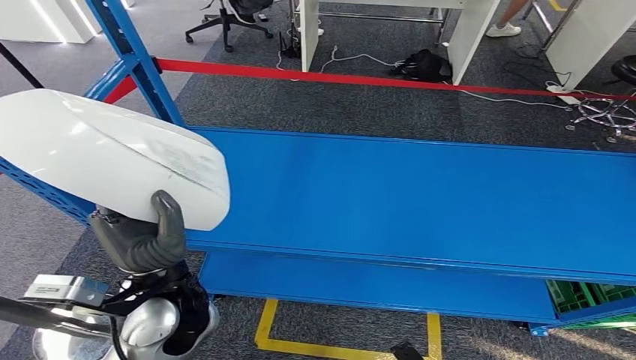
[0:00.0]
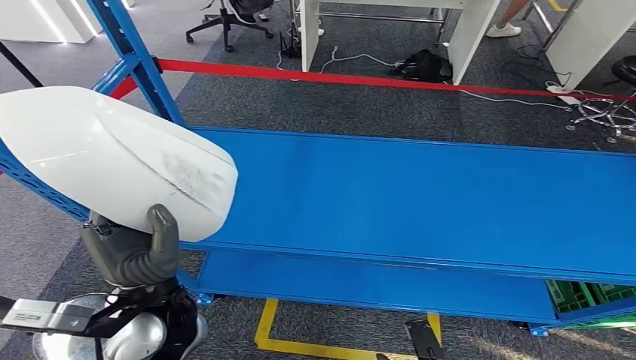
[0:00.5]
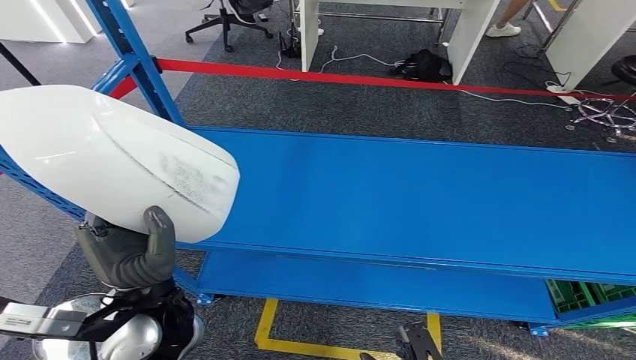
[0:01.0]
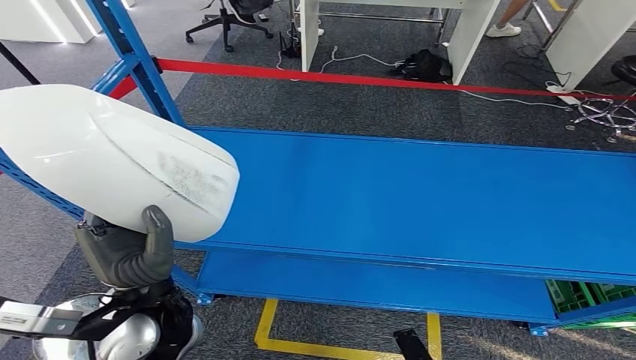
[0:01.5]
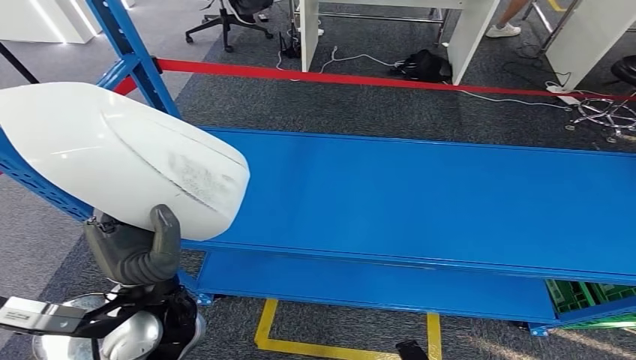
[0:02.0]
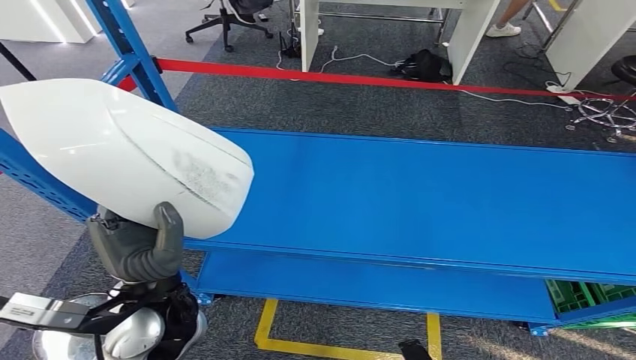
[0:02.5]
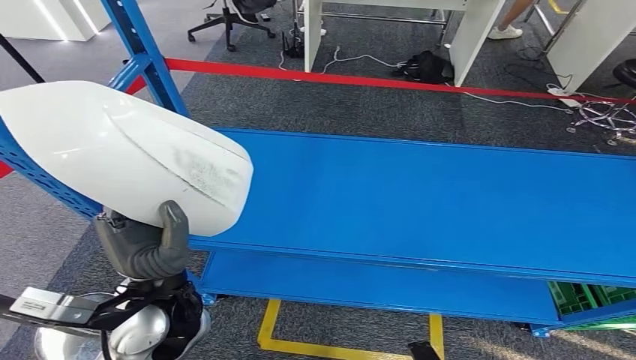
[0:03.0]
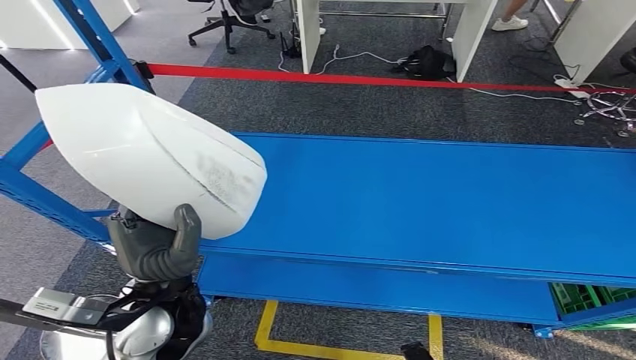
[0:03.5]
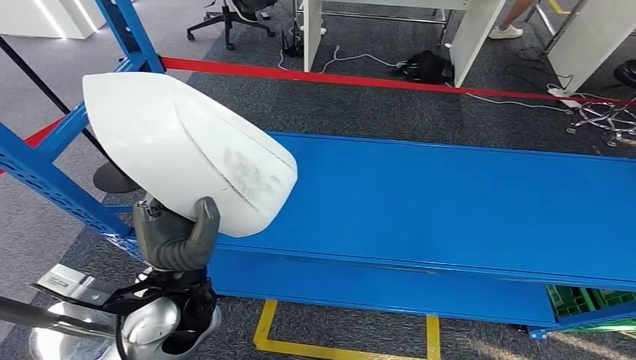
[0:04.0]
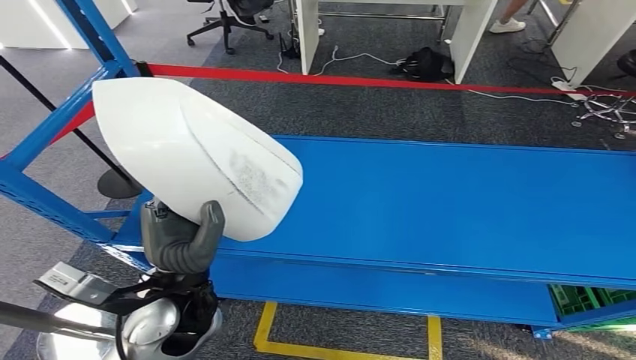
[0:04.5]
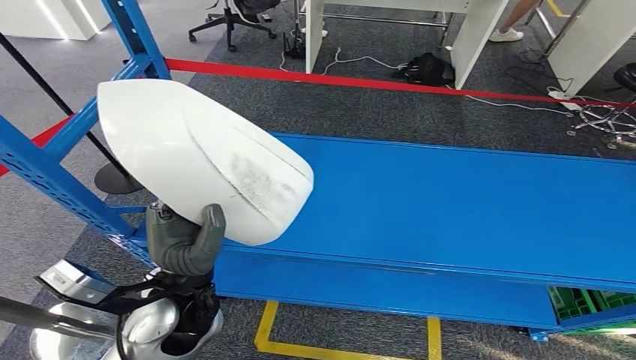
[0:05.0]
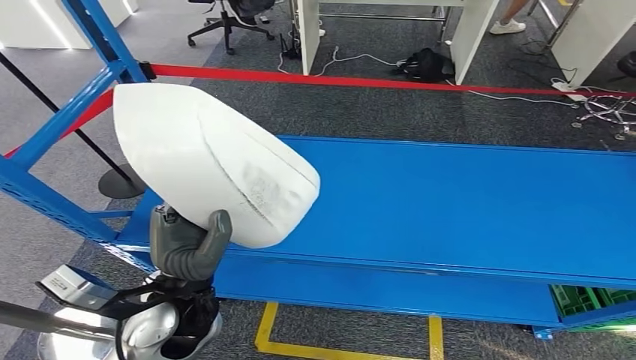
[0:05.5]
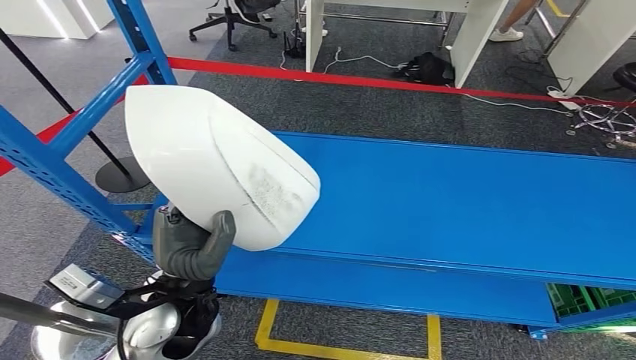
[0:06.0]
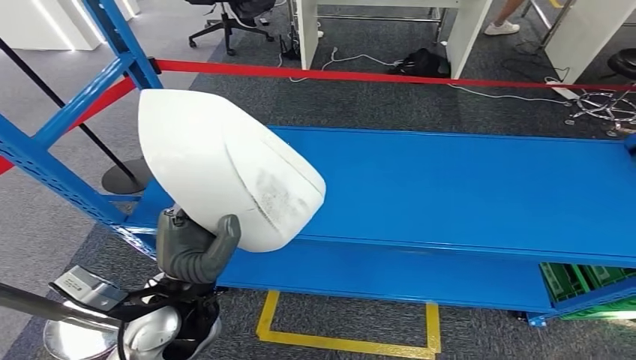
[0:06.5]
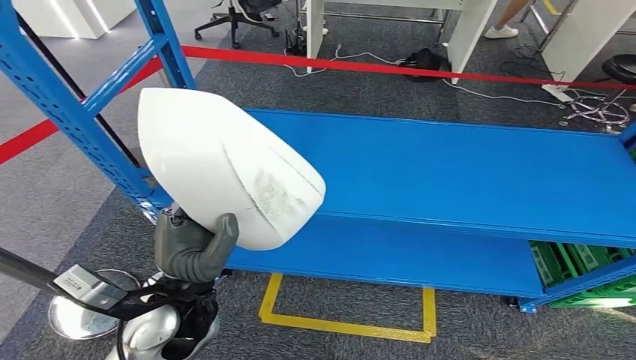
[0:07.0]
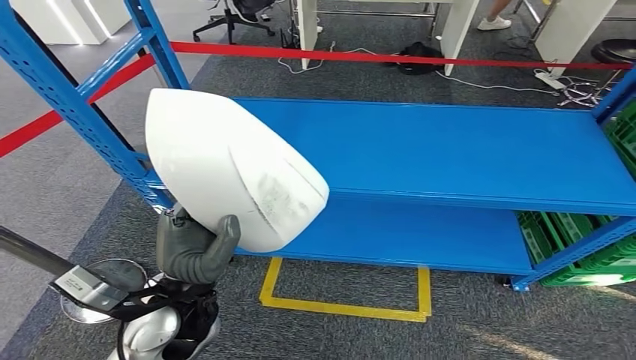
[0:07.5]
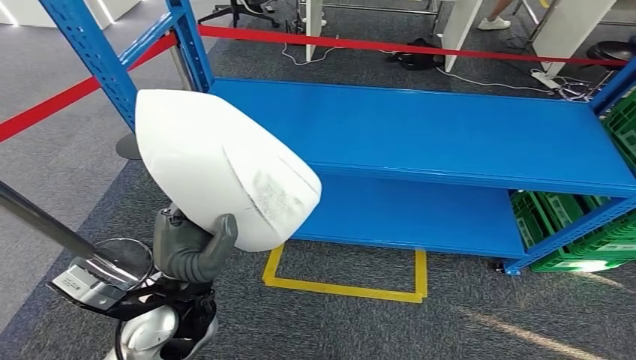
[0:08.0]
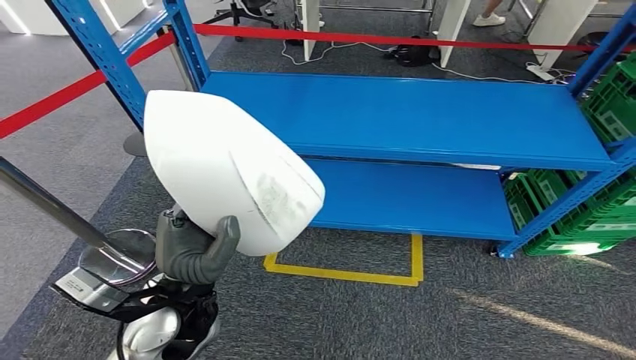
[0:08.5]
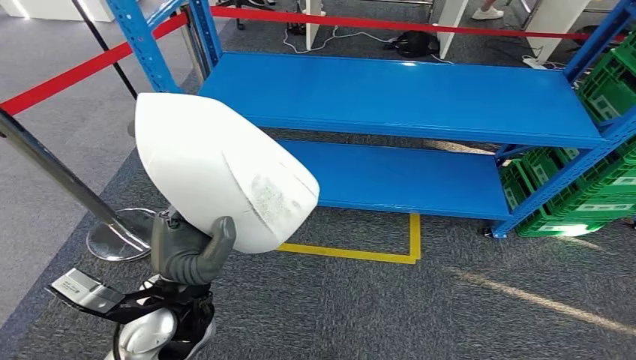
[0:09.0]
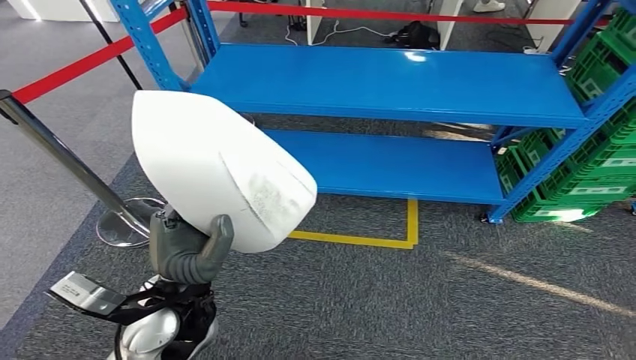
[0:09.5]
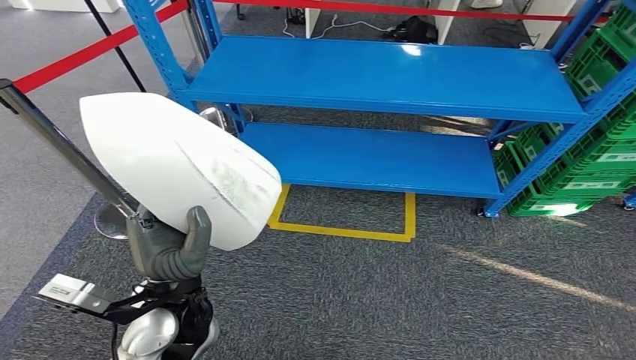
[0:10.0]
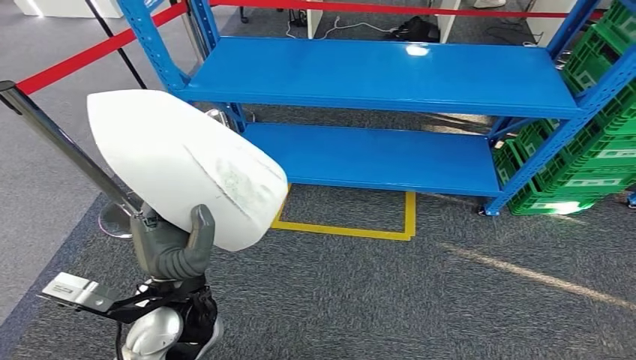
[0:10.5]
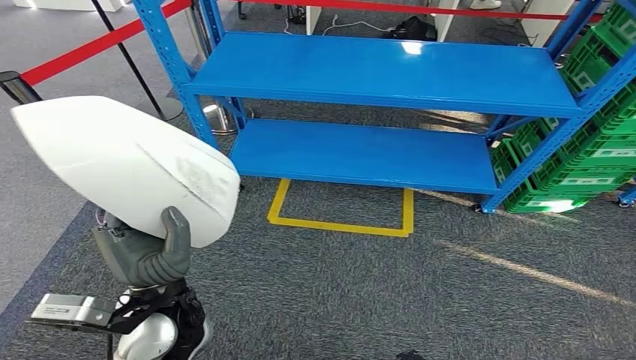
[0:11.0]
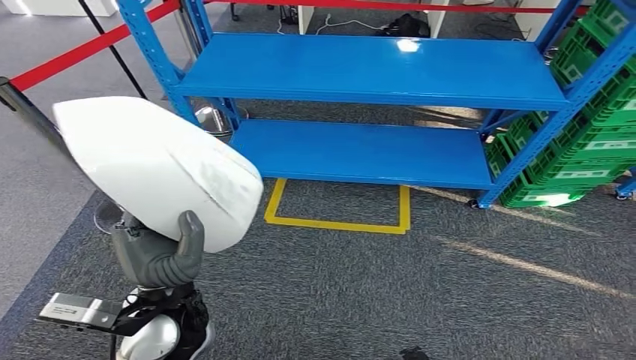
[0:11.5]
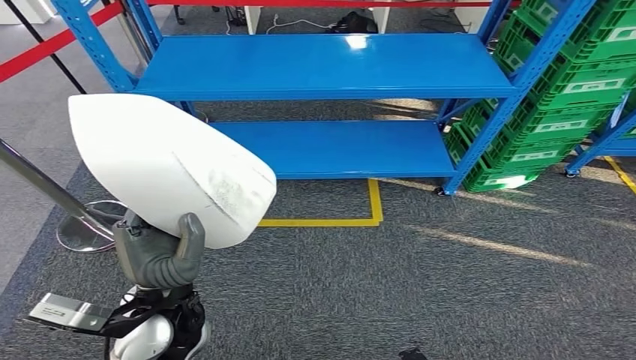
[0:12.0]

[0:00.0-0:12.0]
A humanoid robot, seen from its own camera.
0:04.0 to 0:06.0: There are only small adjustments of the hands.

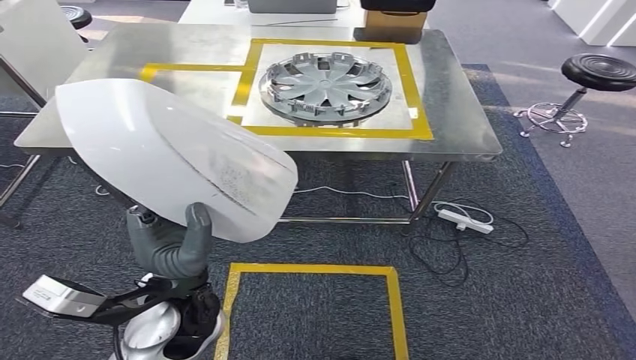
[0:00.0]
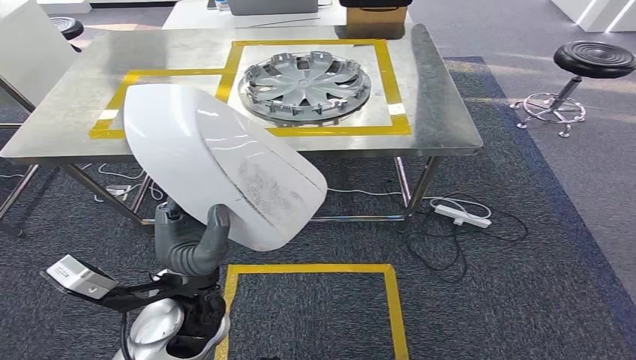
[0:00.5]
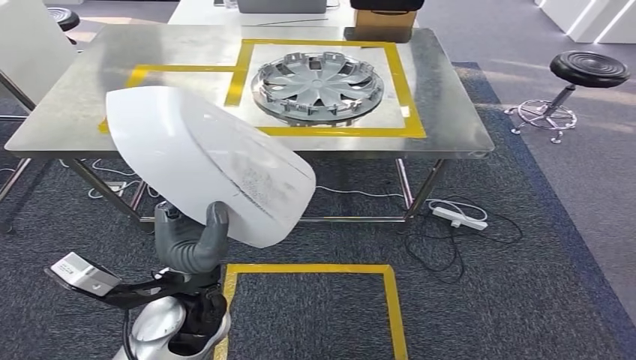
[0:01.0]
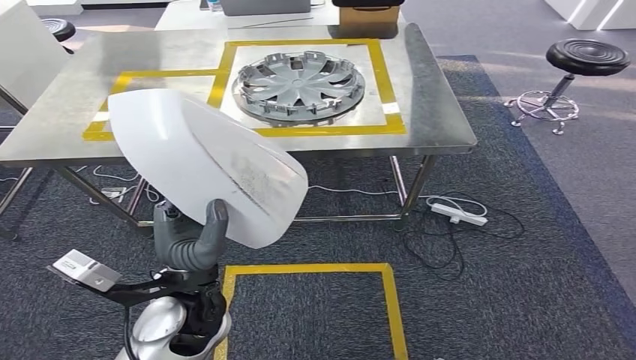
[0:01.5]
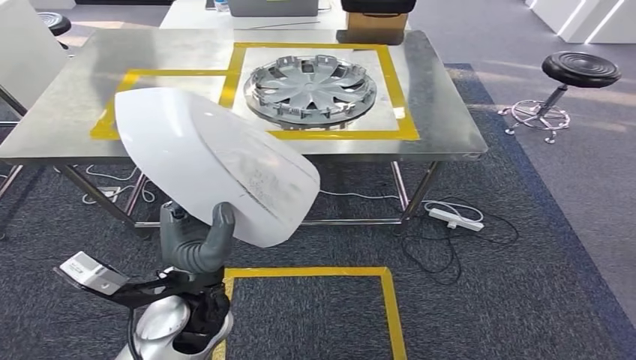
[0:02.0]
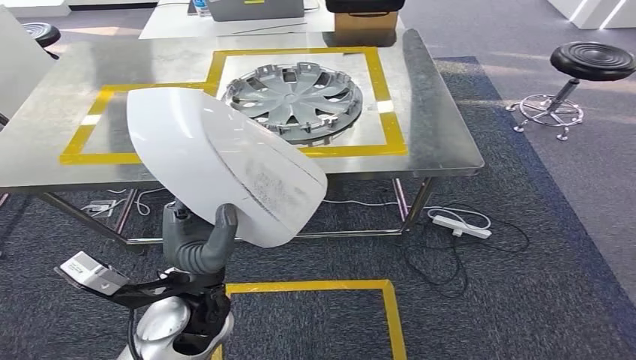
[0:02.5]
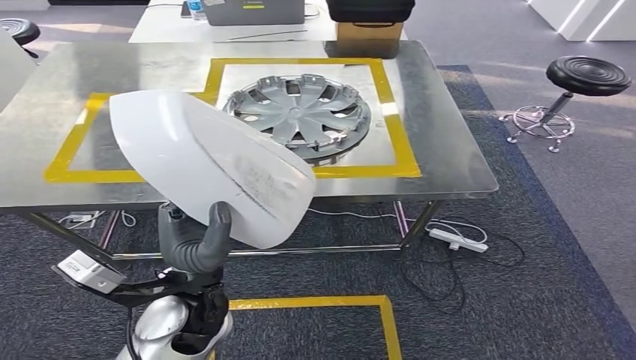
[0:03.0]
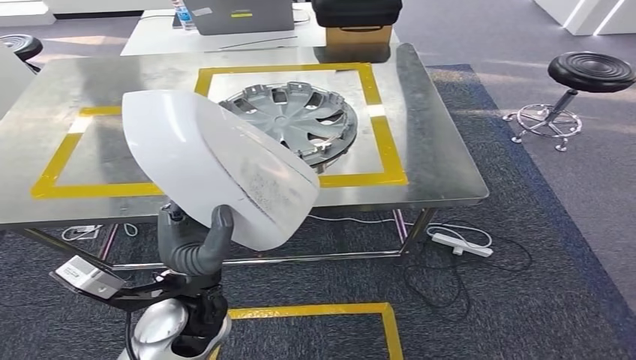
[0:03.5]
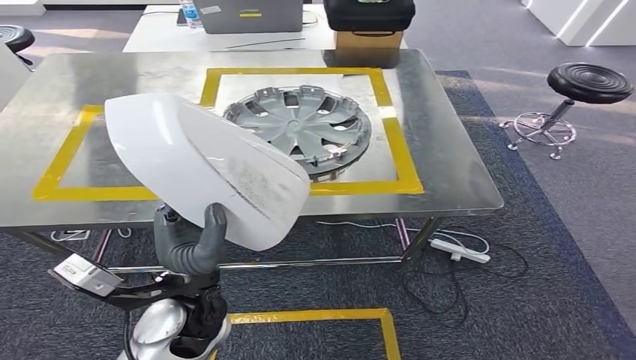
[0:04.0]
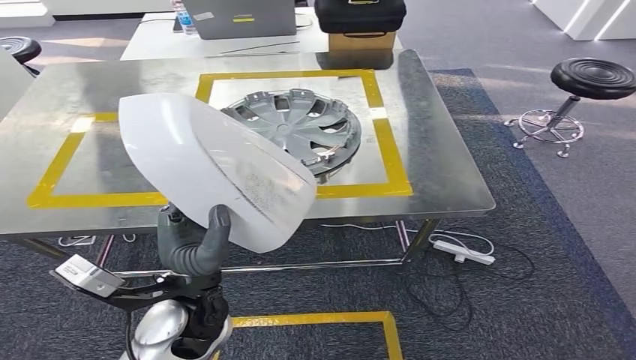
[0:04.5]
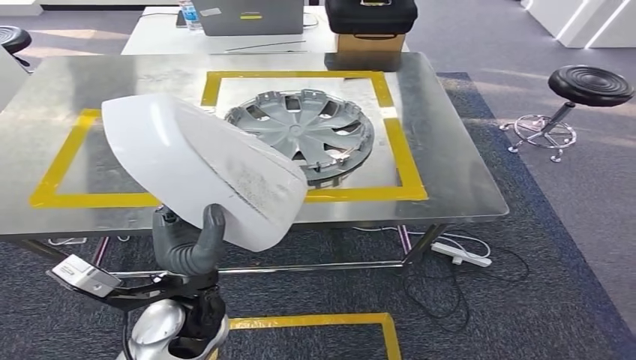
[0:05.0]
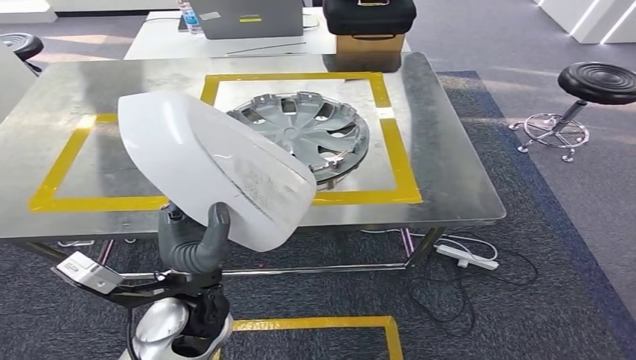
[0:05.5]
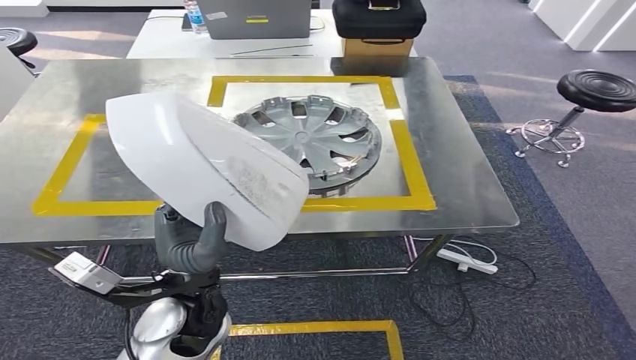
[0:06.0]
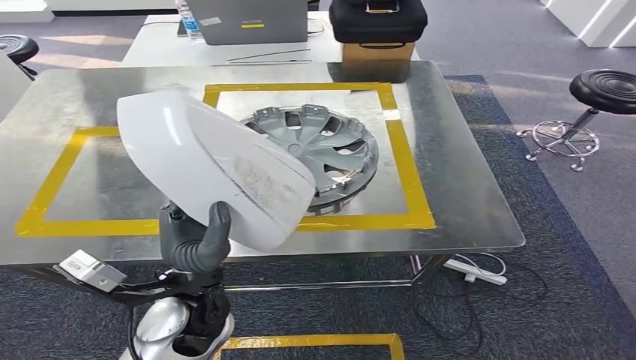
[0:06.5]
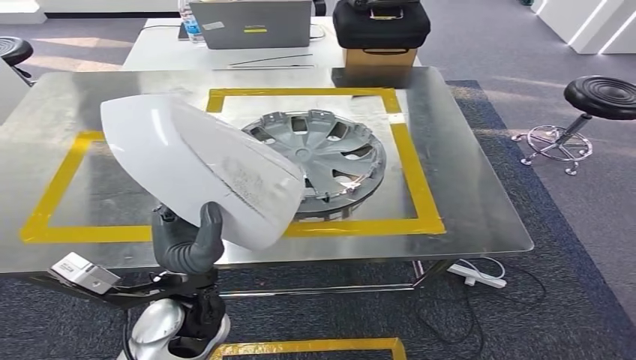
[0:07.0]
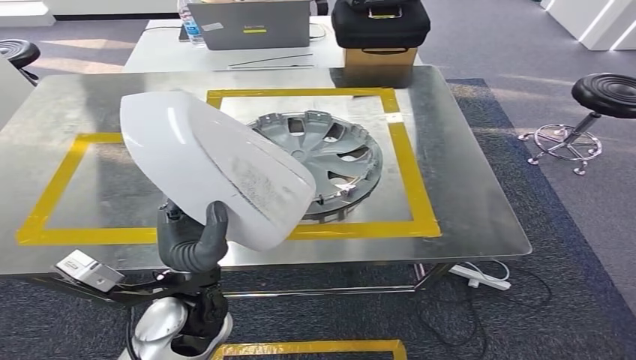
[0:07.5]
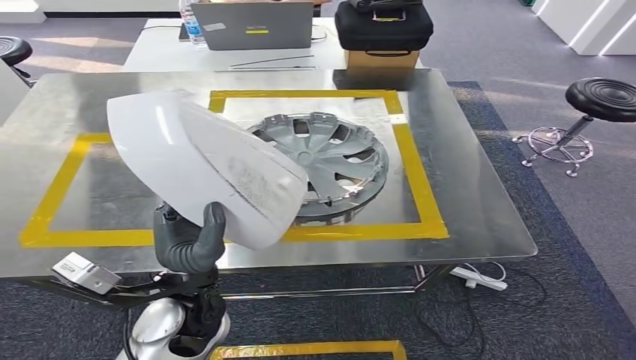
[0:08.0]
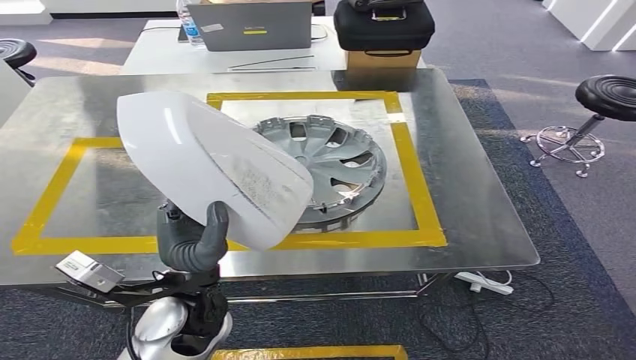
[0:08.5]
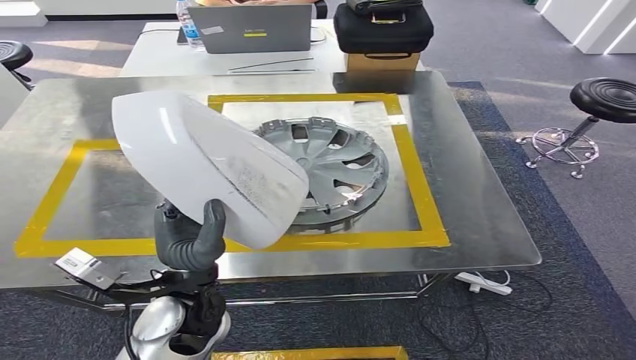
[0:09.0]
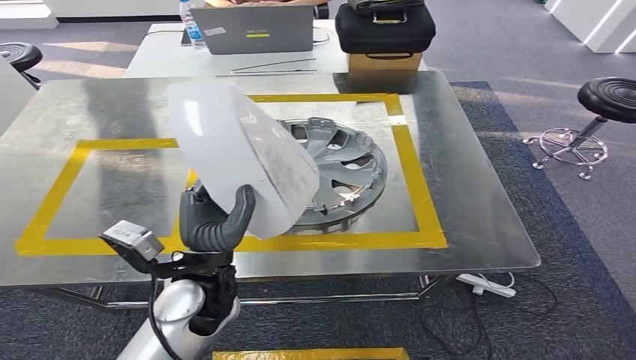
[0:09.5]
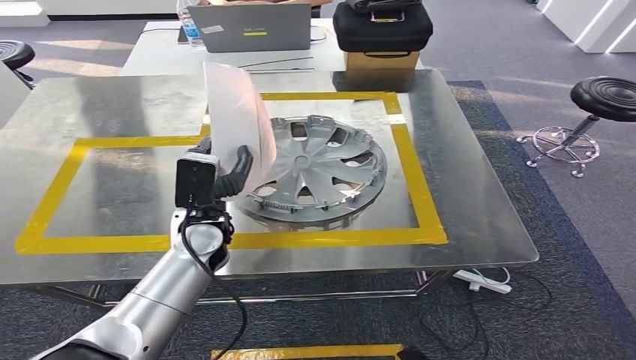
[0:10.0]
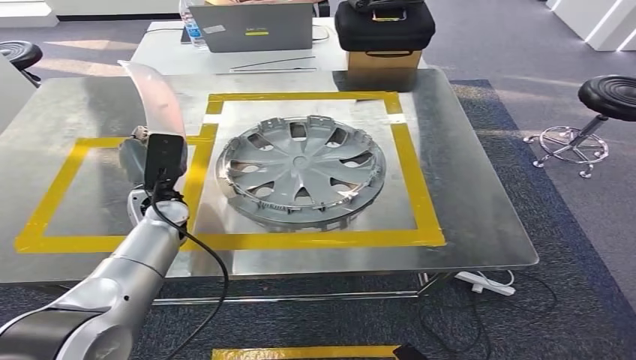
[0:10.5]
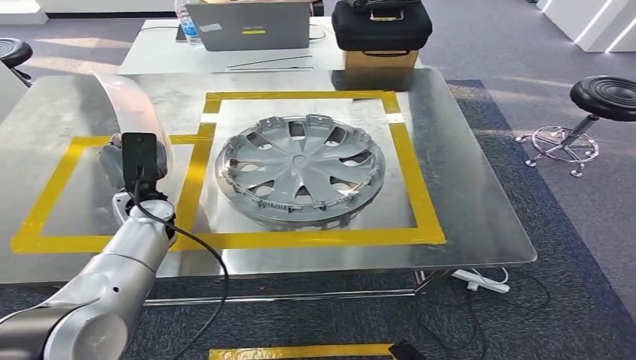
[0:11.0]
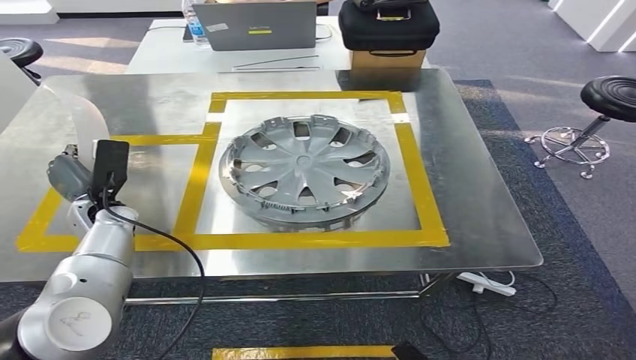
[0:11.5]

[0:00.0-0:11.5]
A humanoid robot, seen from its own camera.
Step, 0:00.0 to 0:09.0: Move the small component to the workbench.
